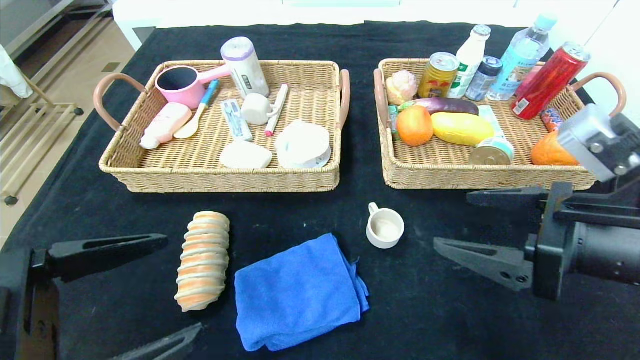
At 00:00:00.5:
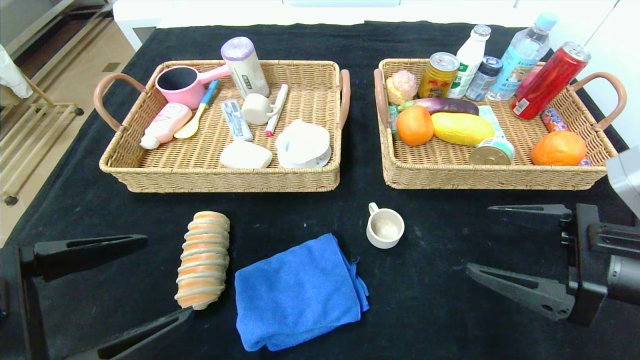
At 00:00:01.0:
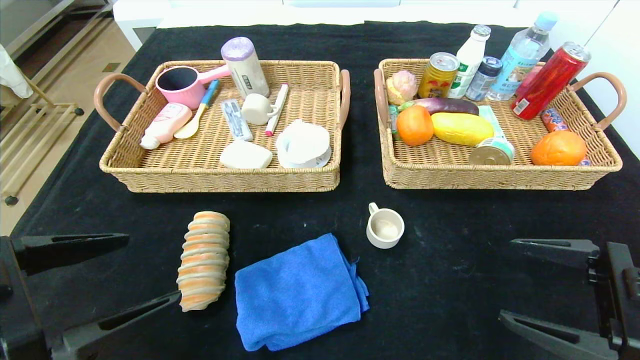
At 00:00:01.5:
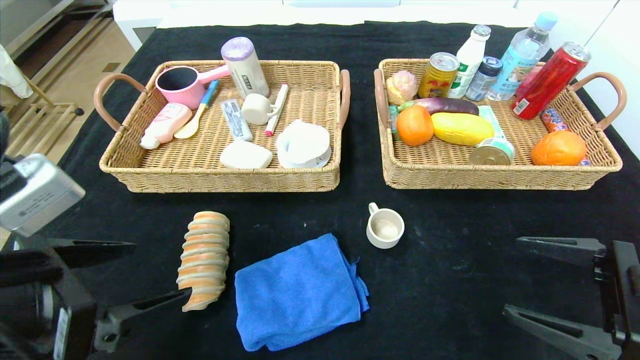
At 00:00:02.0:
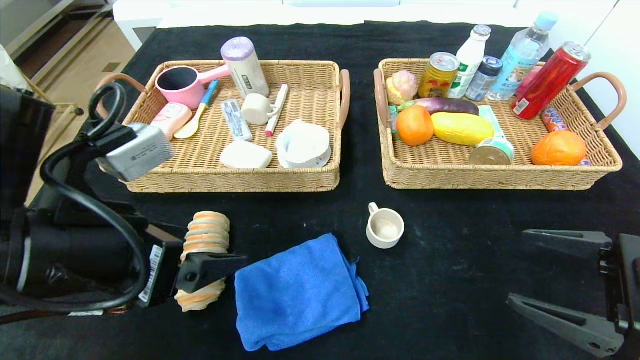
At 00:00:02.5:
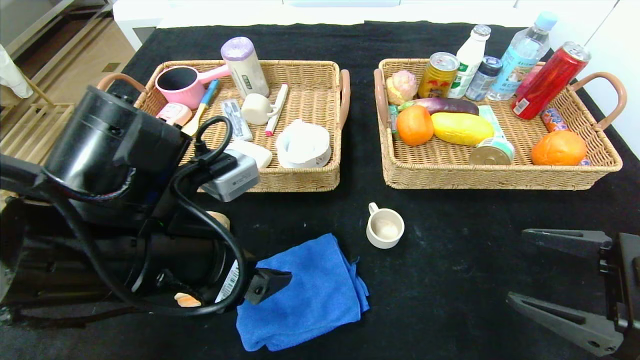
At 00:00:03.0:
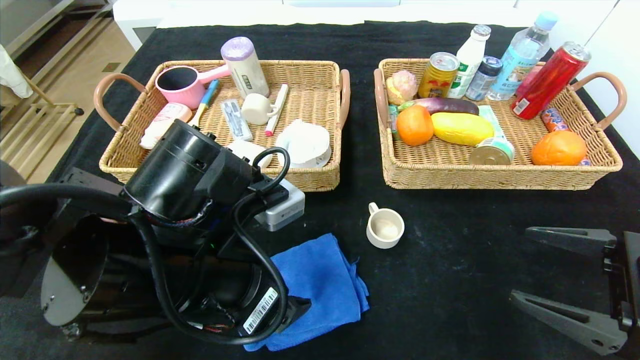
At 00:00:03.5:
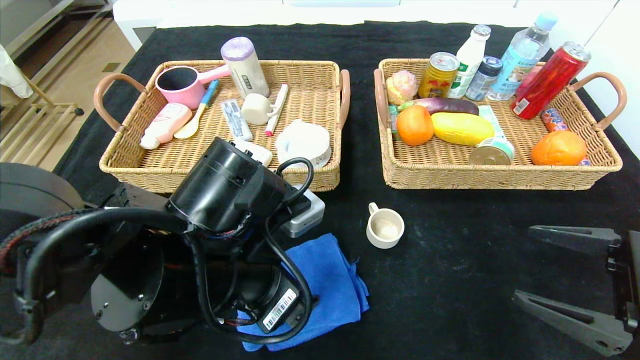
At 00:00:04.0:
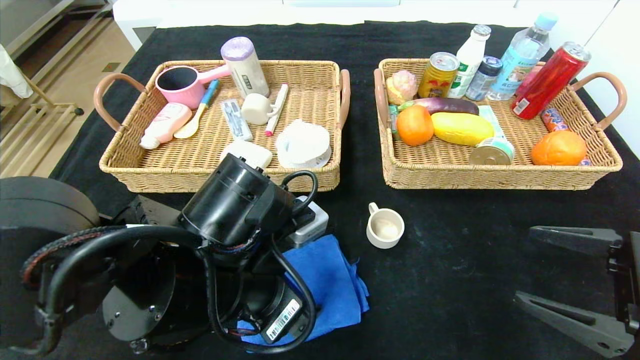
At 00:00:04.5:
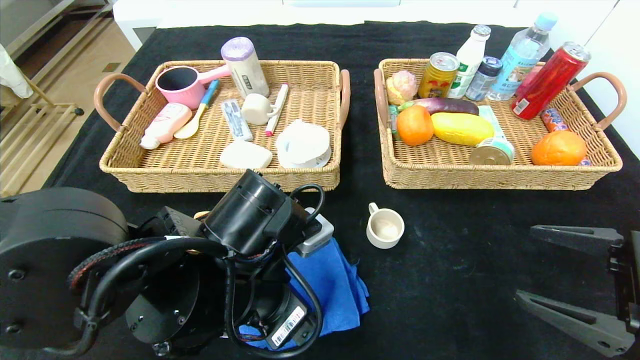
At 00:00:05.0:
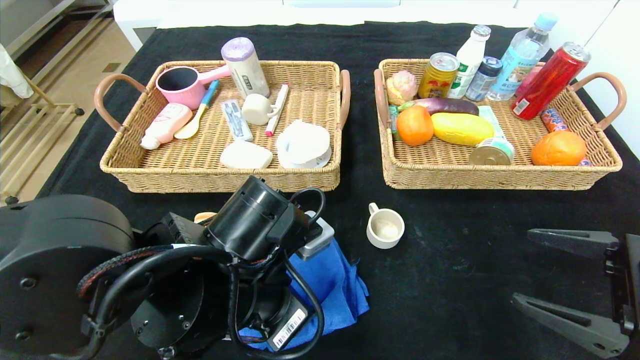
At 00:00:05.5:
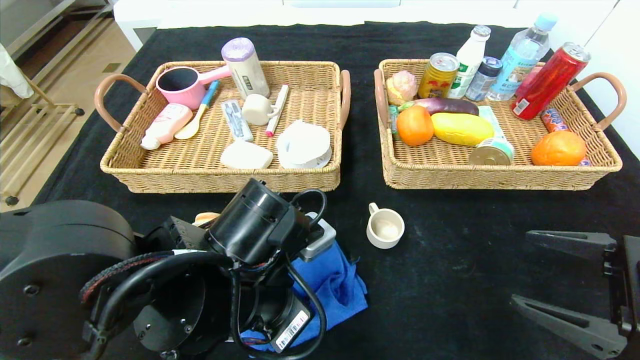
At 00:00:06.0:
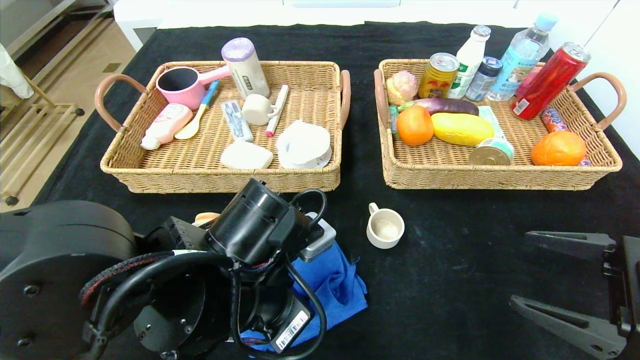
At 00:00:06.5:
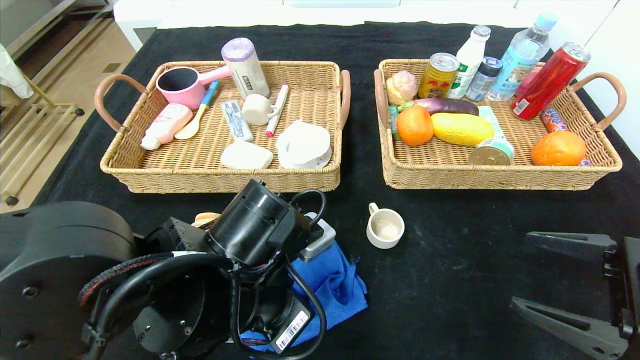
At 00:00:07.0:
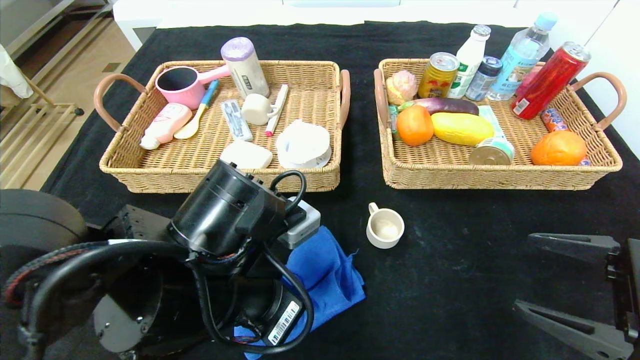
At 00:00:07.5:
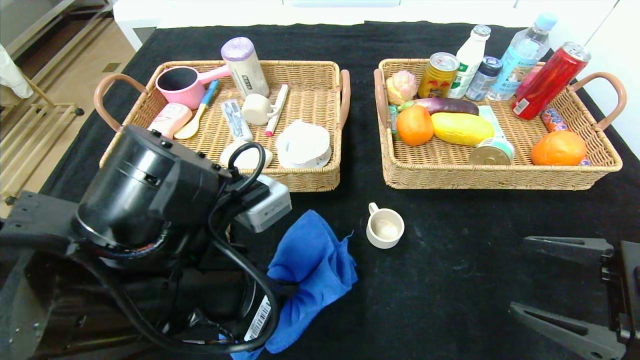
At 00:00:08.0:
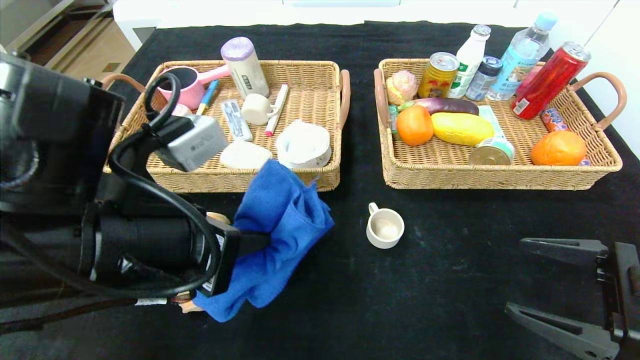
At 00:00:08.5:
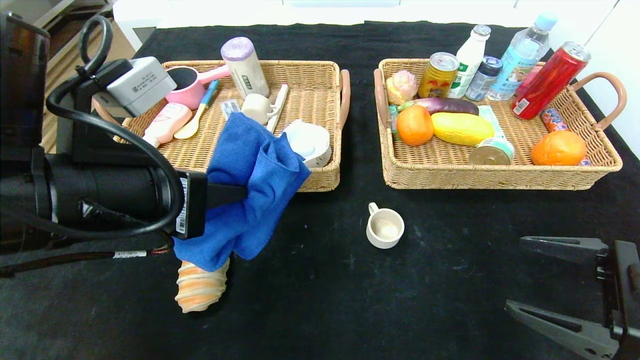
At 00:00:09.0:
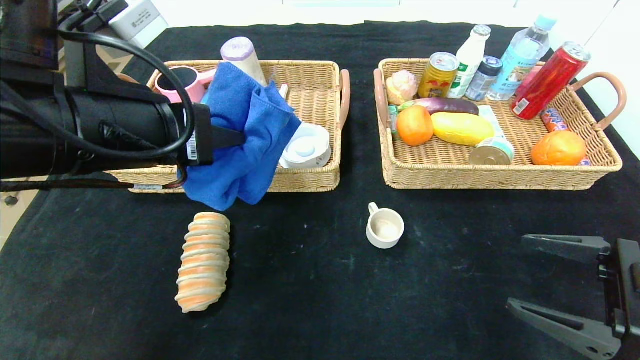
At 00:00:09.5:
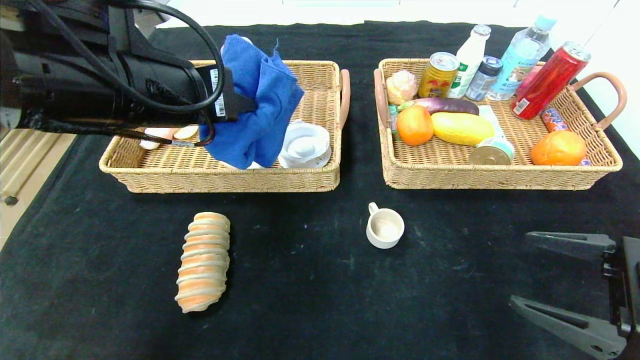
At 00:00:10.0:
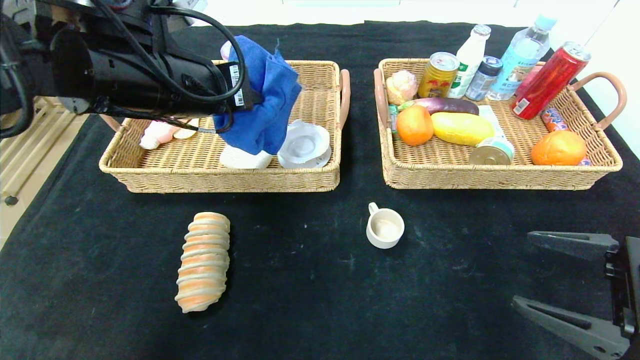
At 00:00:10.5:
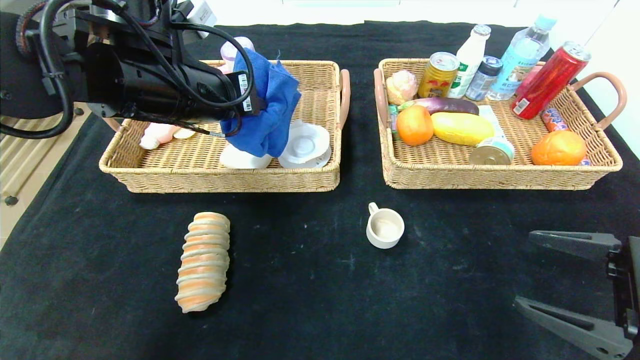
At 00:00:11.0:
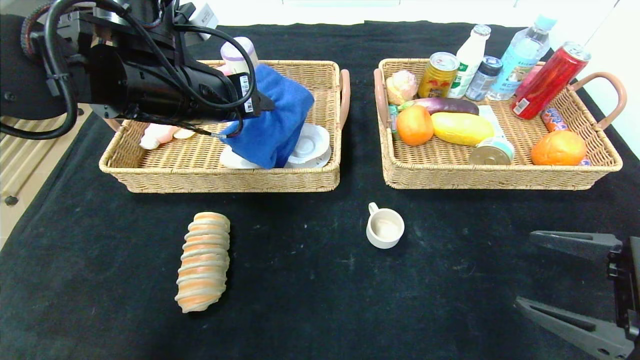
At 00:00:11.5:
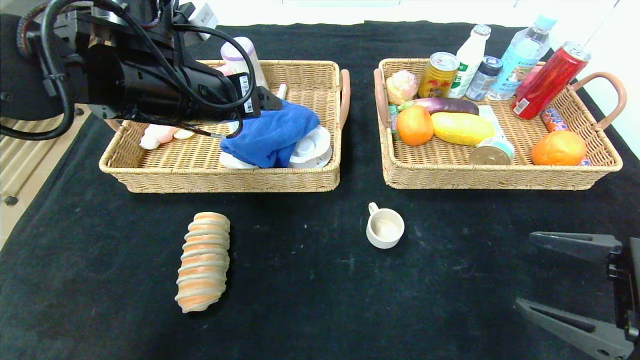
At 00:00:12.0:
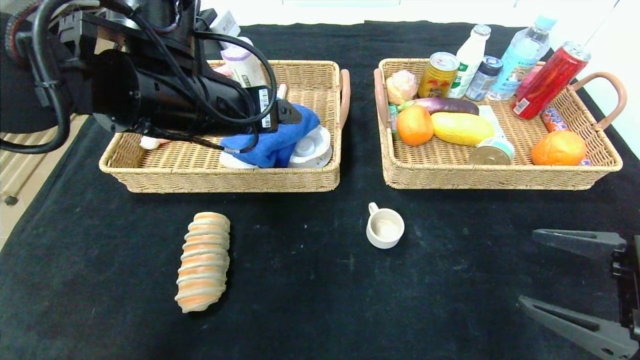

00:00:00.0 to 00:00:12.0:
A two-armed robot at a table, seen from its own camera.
00:00:00.0 to 00:00:02.0: The right gripper travels to the right and downward by about 10 cm; the left gripper goes about 5 cm forward.
00:00:02.0 to 00:00:04.0: The left gripper is displaced to the right and downward by roughly 10 cm.
00:00:04.0 to 00:00:06.0: The left gripper closes its fingers.
00:00:06.0 to 00:00:08.0: The left gripper is displaced upward and to the left by about 10 cm.
00:00:08.0 to 00:00:10.0: The left gripper shifts roughly 15 cm forward and upward.
00:00:10.0 to 00:00:12.0: The left gripper opens.

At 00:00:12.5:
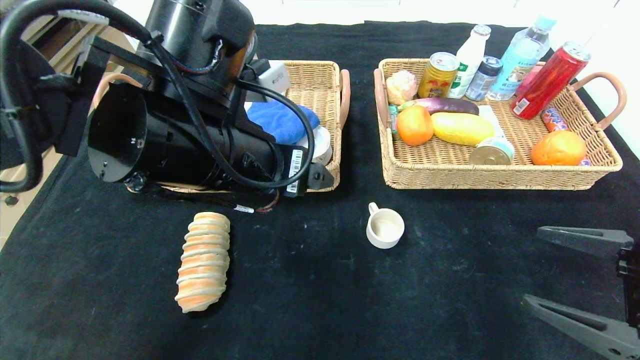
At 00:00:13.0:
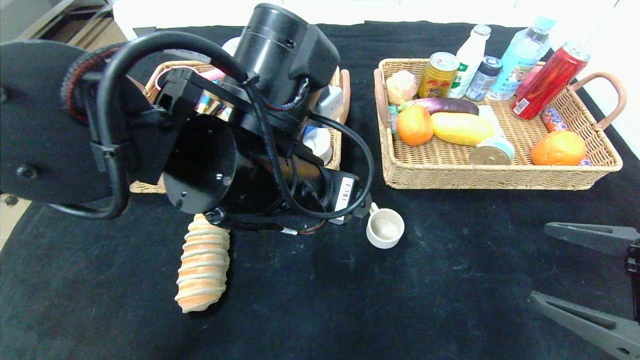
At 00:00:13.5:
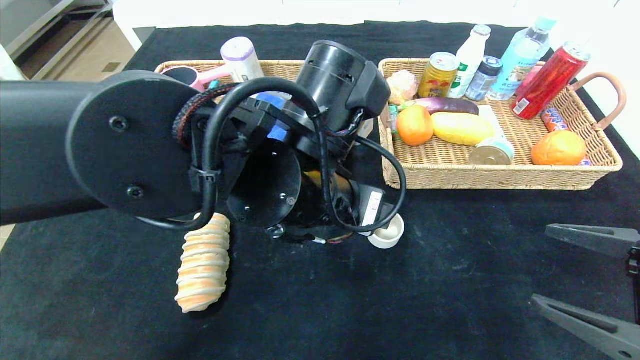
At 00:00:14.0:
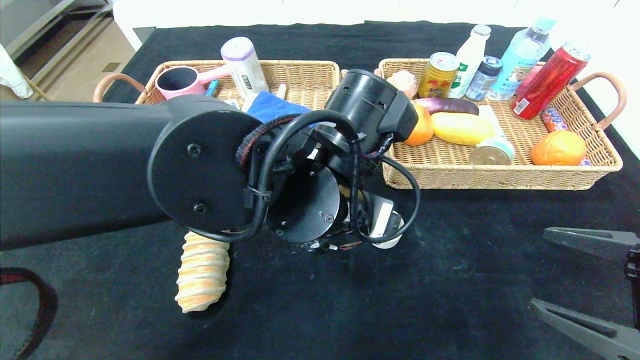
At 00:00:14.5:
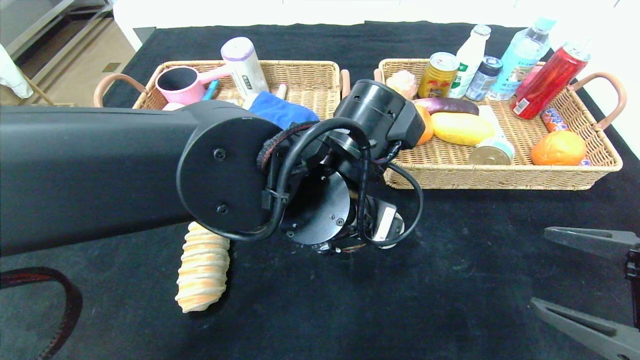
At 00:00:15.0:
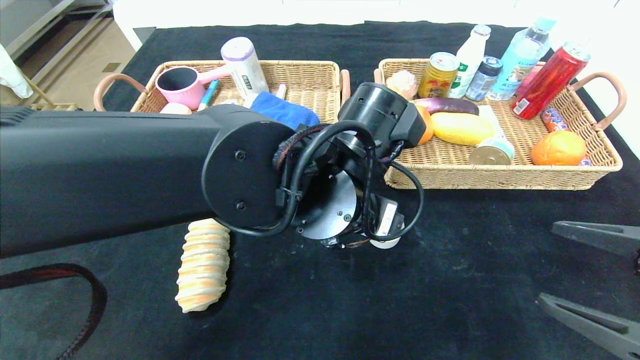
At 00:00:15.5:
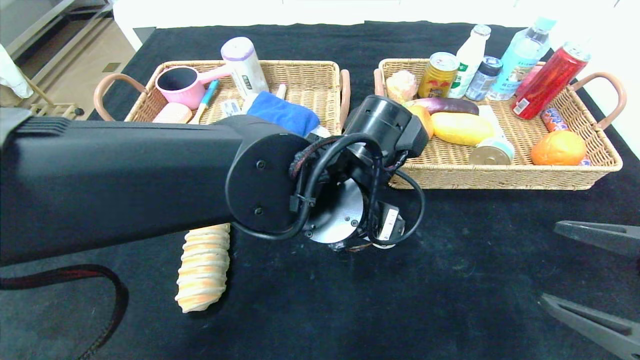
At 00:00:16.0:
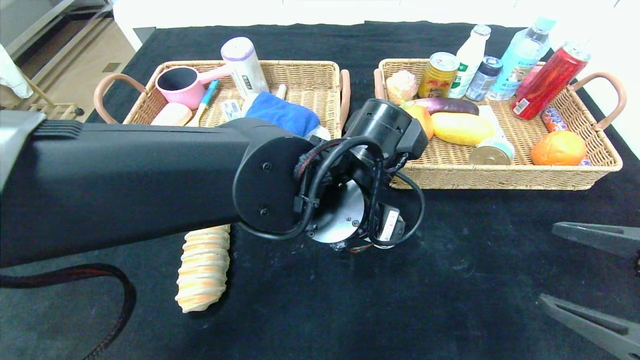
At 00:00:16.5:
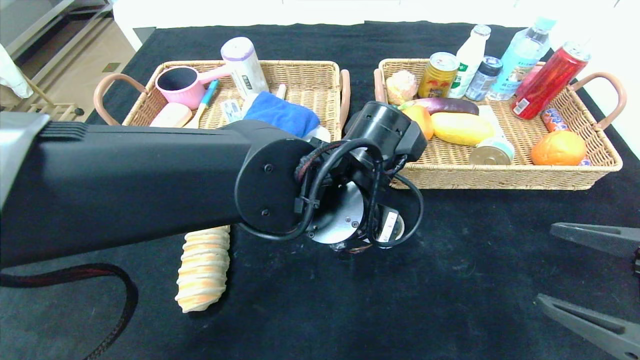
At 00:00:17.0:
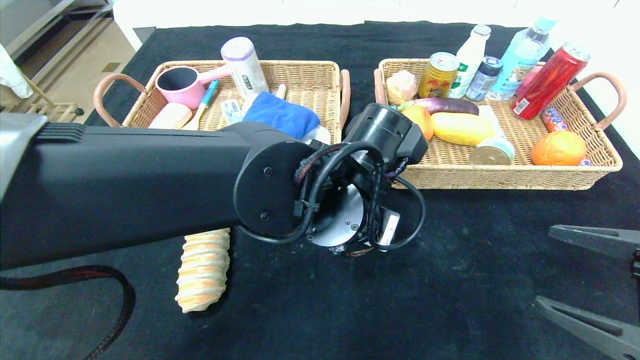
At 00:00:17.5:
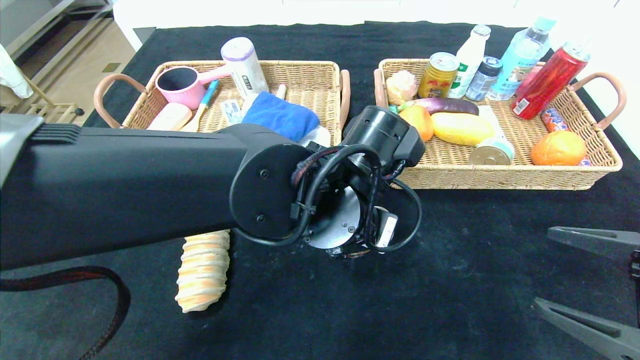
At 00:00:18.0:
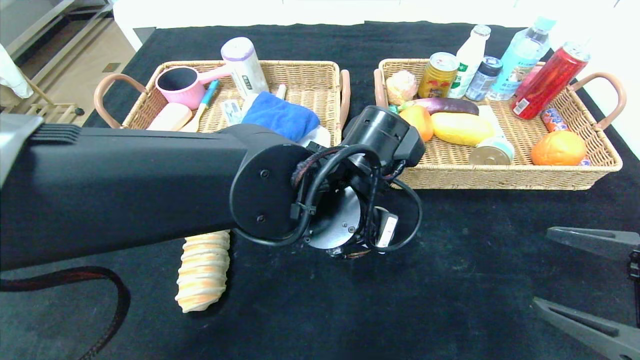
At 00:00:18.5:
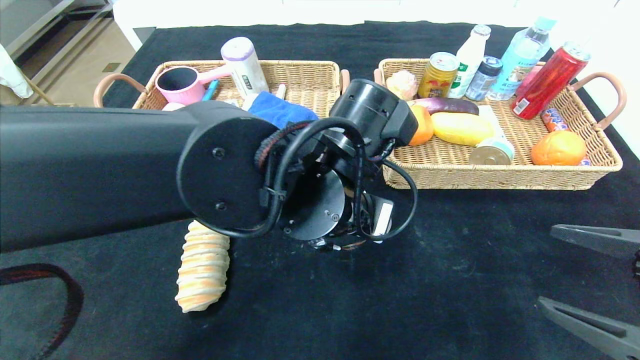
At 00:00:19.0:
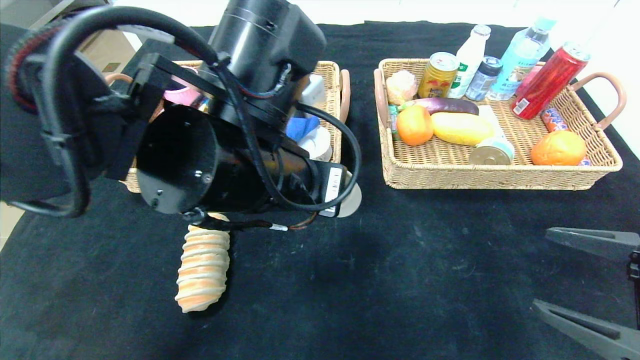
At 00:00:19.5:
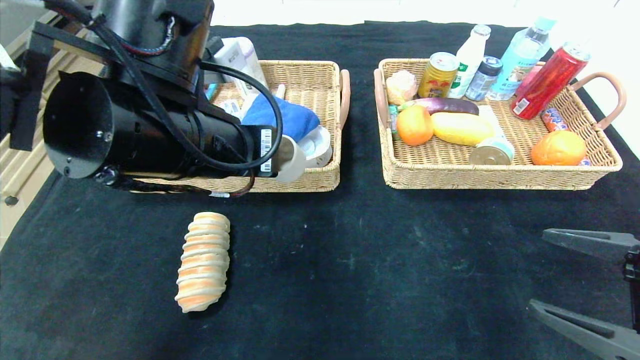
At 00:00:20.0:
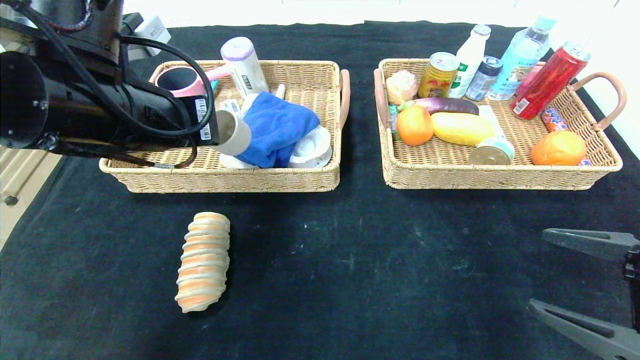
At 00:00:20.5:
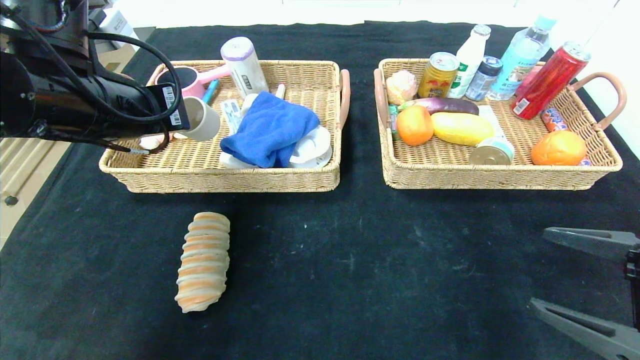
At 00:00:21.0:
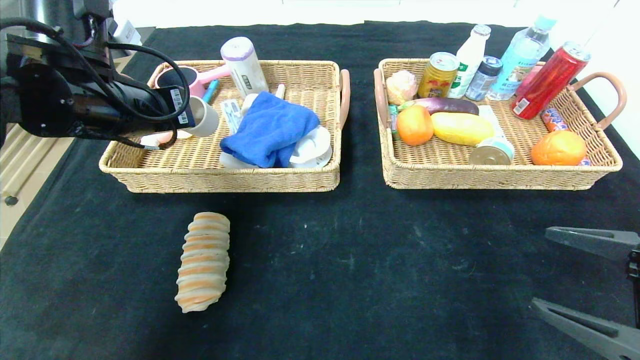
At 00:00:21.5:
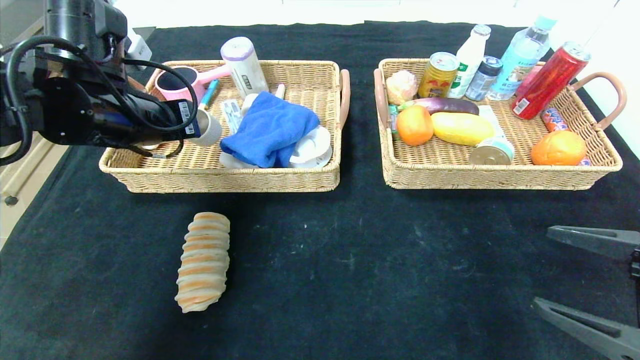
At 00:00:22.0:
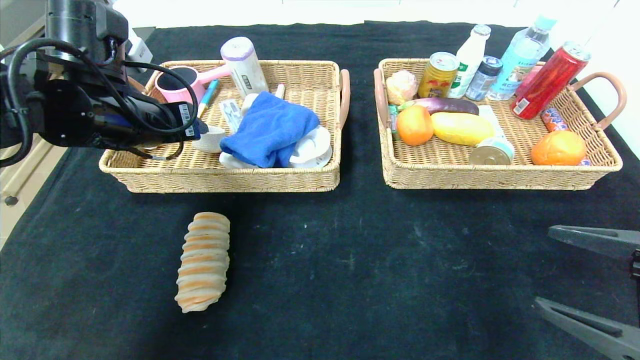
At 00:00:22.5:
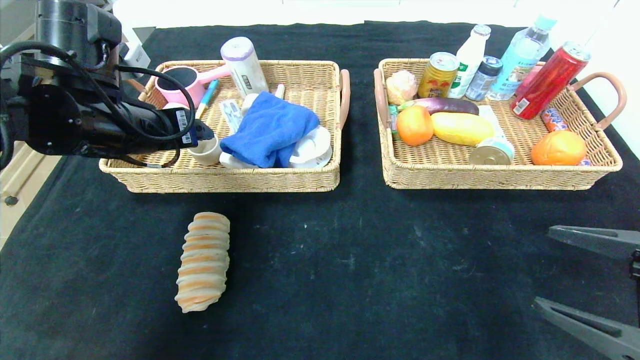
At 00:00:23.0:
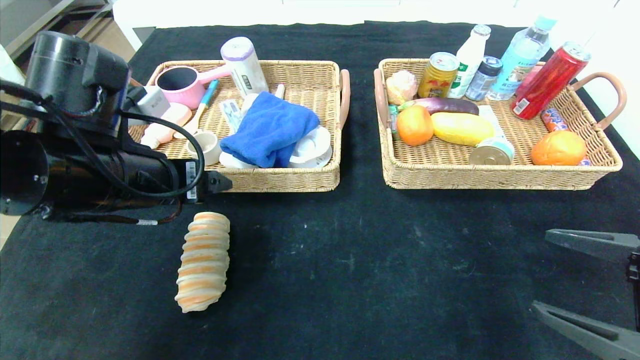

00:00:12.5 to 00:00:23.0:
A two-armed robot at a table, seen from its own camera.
00:00:12.5 to 00:00:14.5: The left gripper travels to the right and downward by some 10 cm.
00:00:14.5 to 00:00:16.5: There are only small adjustments of the grippers.
00:00:16.5 to 00:00:19.0: The left gripper moves to the left and upward, roughly 10 cm, and closes its fingers.
00:00:19.0 to 00:00:21.0: The left gripper is displaced to the left and forward by approximately 20 cm.
00:00:21.0 to 00:00:23.0: The left gripper shifts roughly 5 cm backward, and opens.
